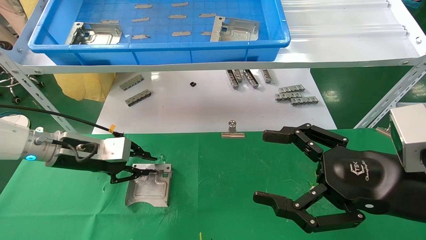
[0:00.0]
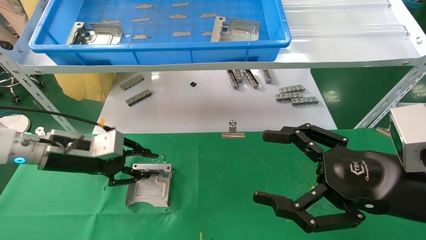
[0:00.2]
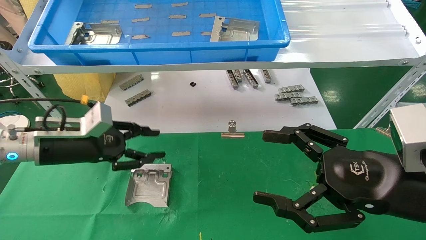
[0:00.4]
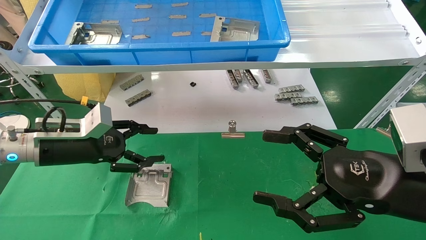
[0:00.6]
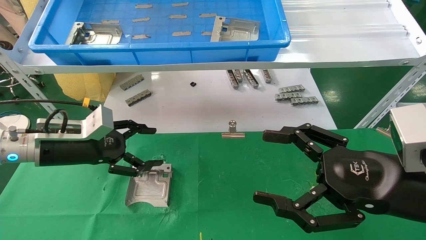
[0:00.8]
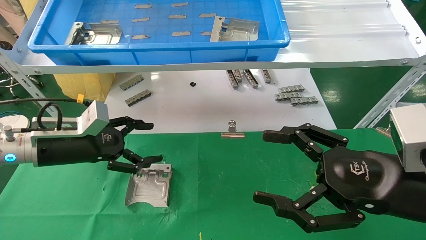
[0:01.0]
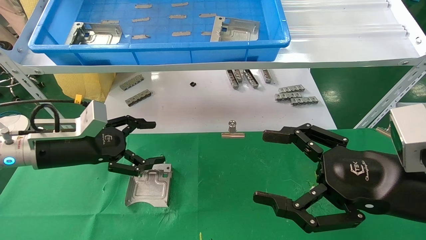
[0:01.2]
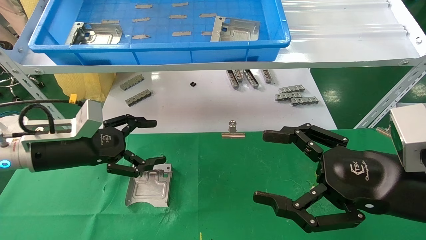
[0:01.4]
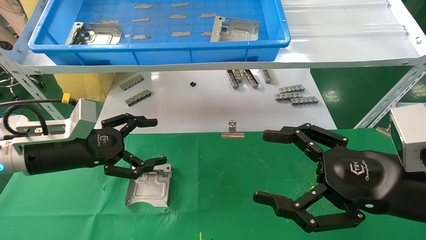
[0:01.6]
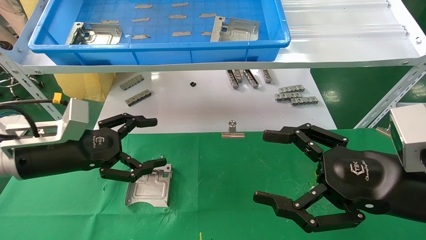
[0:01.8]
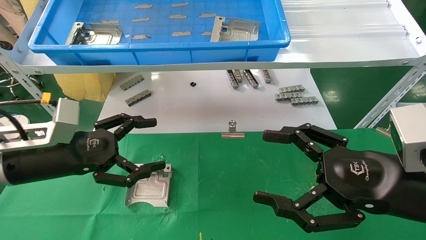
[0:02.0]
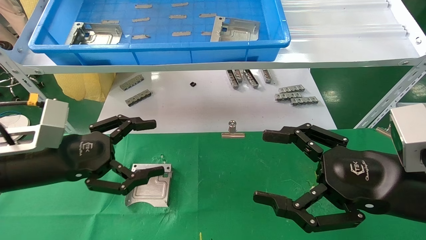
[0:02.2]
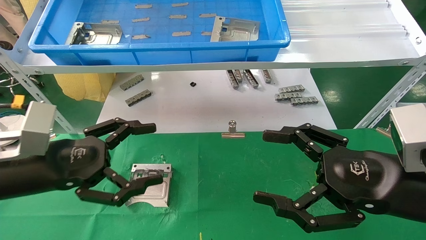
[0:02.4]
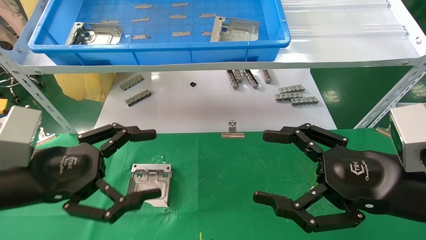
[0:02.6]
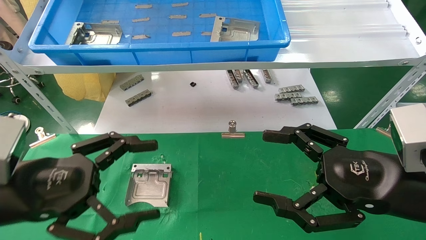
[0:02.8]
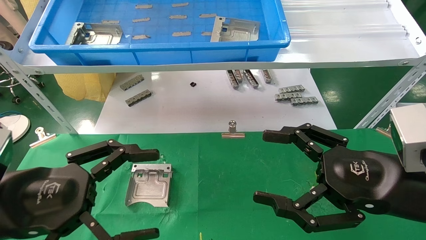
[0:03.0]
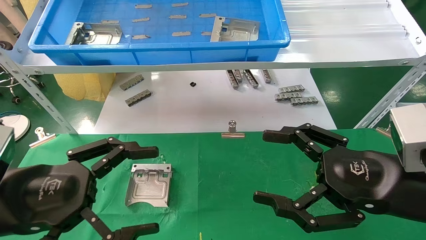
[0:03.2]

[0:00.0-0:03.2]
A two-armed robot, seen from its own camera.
Task of the whole recording: use the mechanical arm to pick up the parts and place them on the table.
0:00.0 to 0:01.6: The left gripper heads backward, covering roughly 5 cm, and opens.
0:01.6 to 0:03.2: The left gripper goes roughly 15 cm backward.
